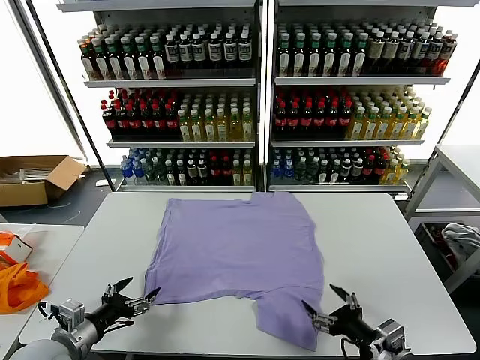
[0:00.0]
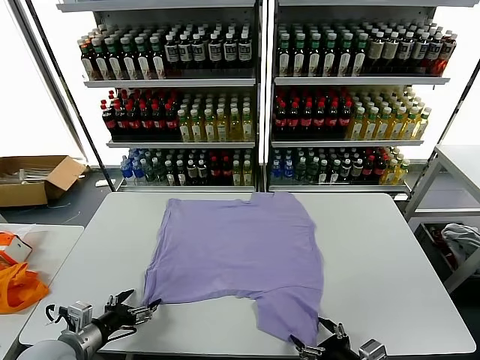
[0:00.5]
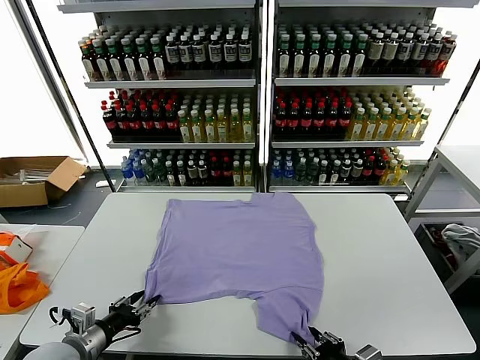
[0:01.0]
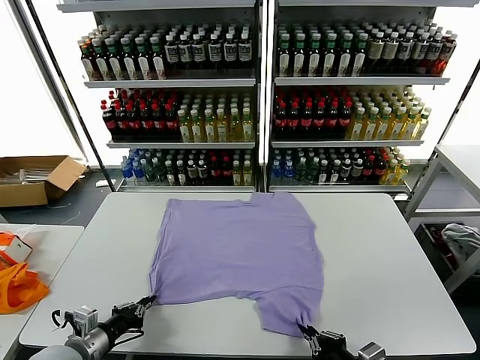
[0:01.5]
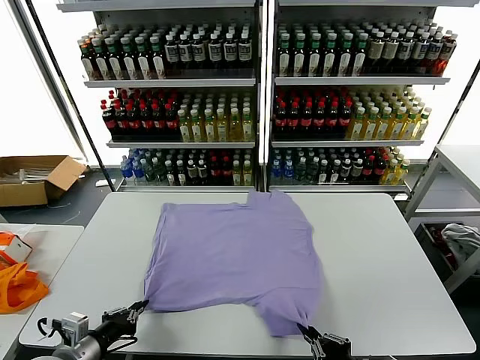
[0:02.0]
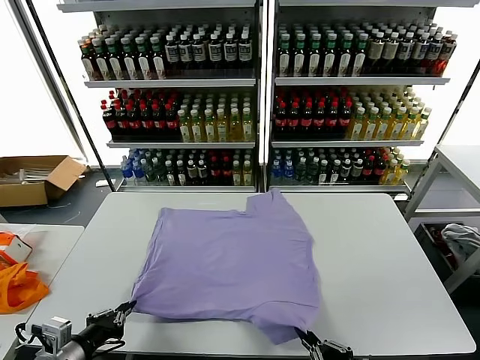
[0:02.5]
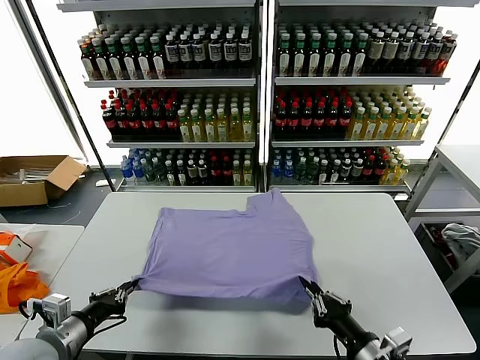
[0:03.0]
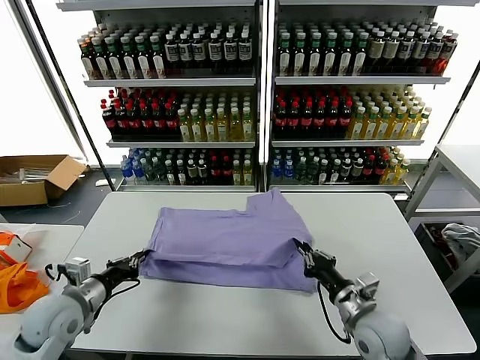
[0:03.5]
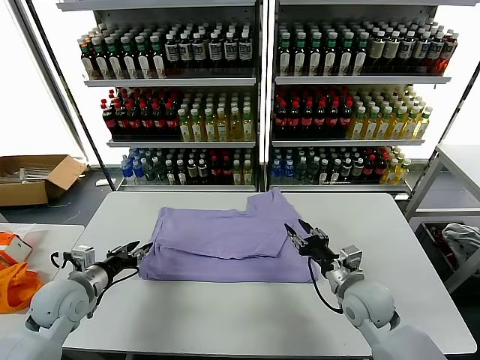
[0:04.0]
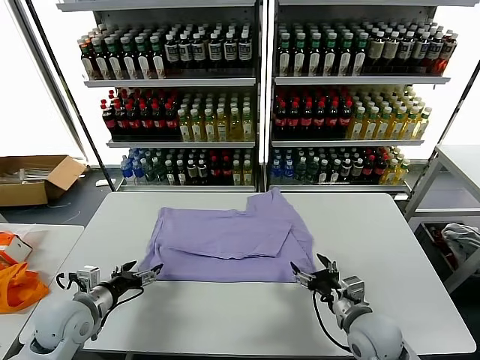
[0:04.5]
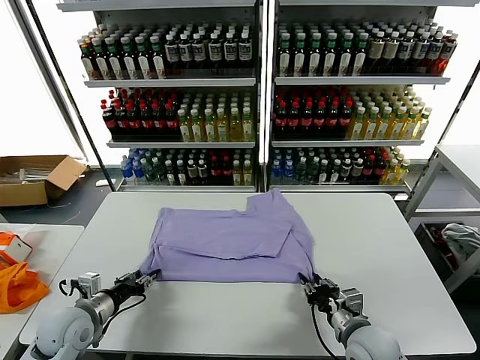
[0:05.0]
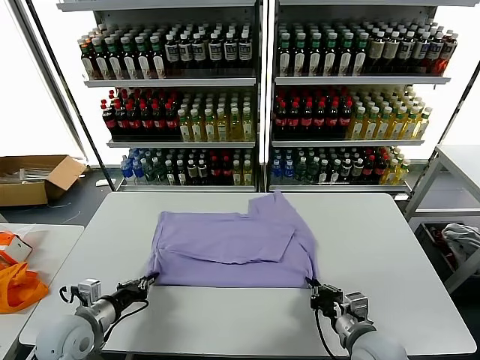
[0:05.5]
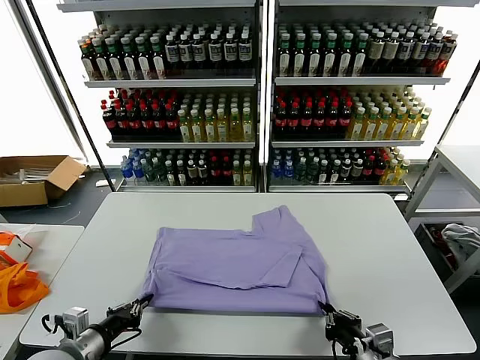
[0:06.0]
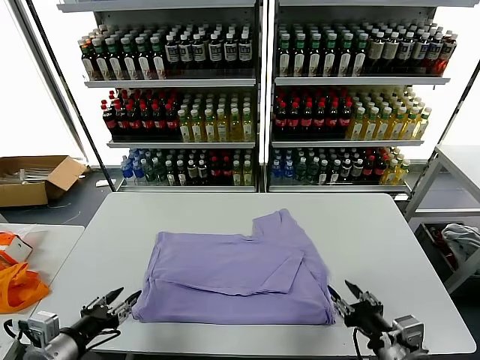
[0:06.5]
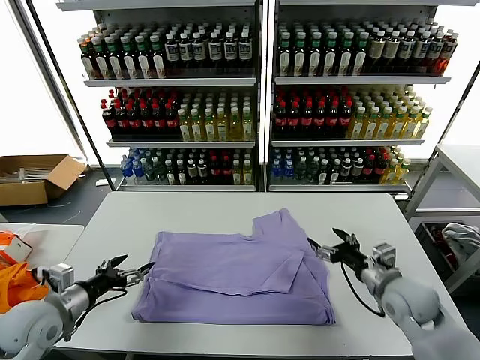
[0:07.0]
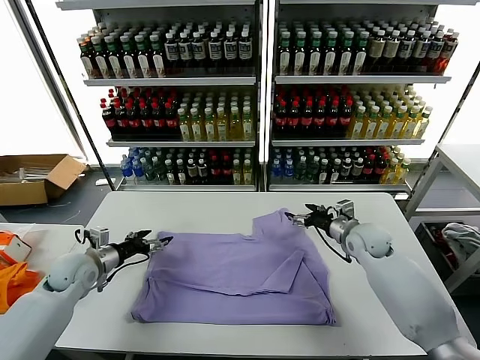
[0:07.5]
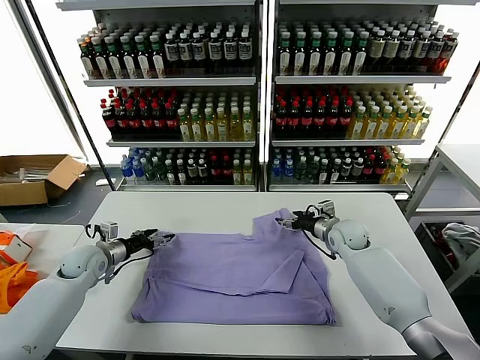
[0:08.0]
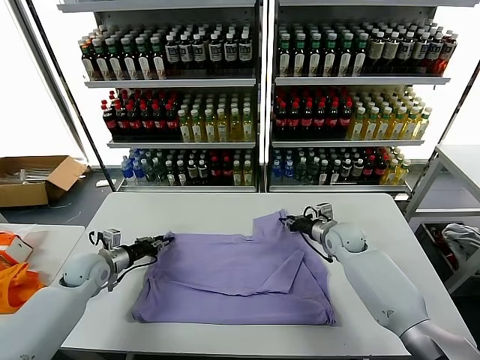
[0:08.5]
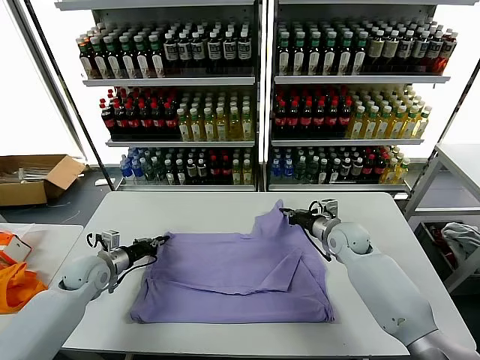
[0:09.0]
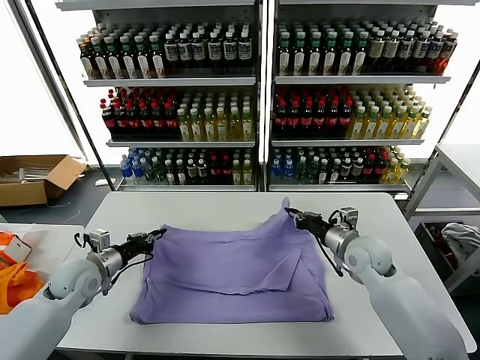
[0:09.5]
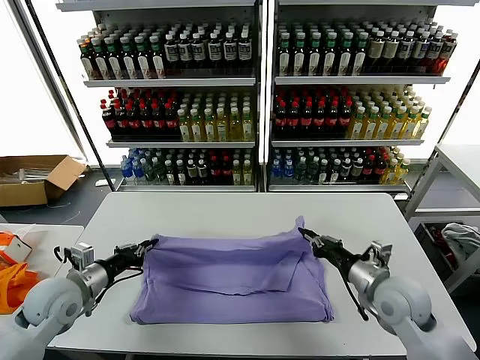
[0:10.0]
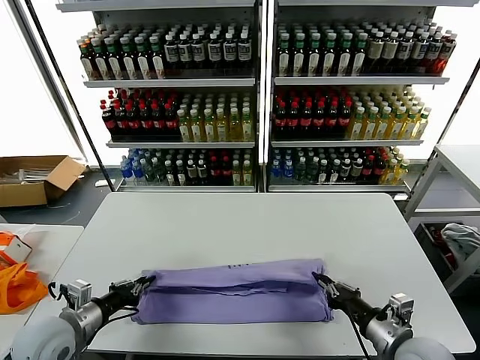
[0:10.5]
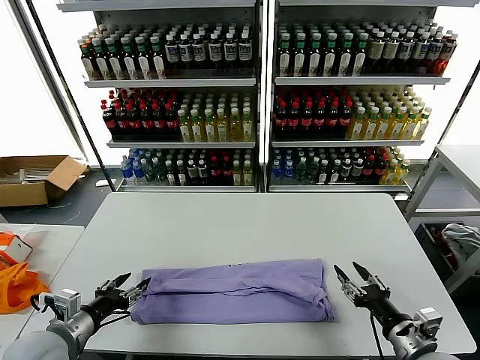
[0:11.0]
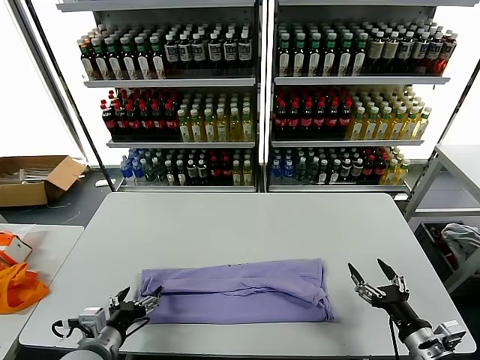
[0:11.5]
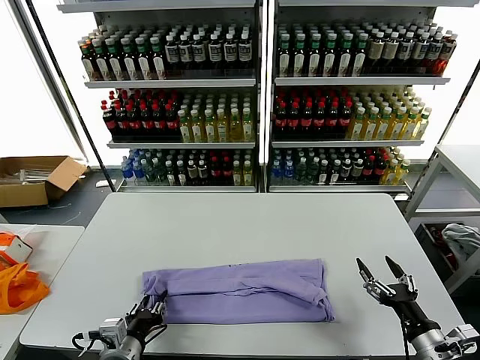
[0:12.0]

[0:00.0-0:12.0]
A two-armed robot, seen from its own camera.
Task of the whole recording: fold and organize the clothes.
Step, 0:00.0 to 0:01.0: use both grippers simultaneously to clamp the lower edge of the clothing fabric.
Step, 0:01.5 to 0:03.5: use both grippers to drag the lower edge of the fabric forward and fold it over the upper edge.
Step, 0:04.0 to 0:06.0: Drag the clothes downward with both gripper.
Step, 0:06.5 to 0:08.5: use both grippers simultaneously to clamp the upper edge of the clothing fabric.
Step, 0:09.0 to 0:10.5: use both grippers to drag the upper edge of the fabric backward and fold it over the lower edge.
0:02.0 to 0:04.0: The right gripper is displaced forward by some 20 cm, and opens its fingers. Meanwhile the left gripper heads forward, covering approximately 15 cm, and opens its fingers.
0:04.0 to 0:06.0: Both grippers travel together backward, some 15 cm. The right gripper closes its fingers, while the left gripper closes up.
0:06.0 to 0:08.0: Both grippers move forward, about 30 cm. The right gripper opens up. The left gripper opens.
0:08.0 to 0:10.0: The right gripper shifts some 25 cm backward, and closes up; the left gripper moves backward and upward, roughly 15 cm, and closes.
0:10.0 to 0:12.0: Both grippers travel together backward, to the right and downward, roughly 15 cm. The left gripper opens; the right gripper opens.

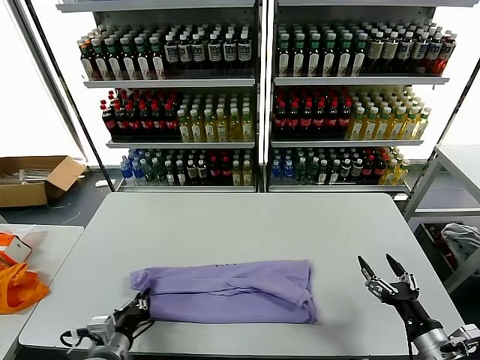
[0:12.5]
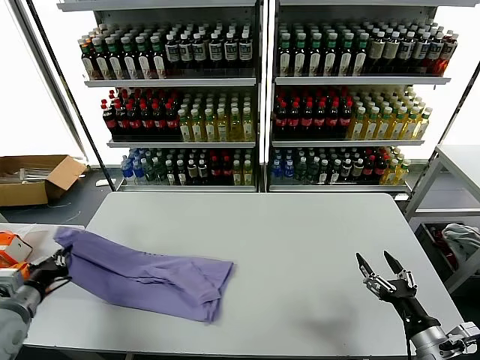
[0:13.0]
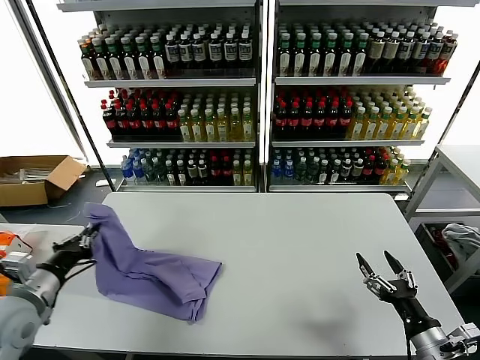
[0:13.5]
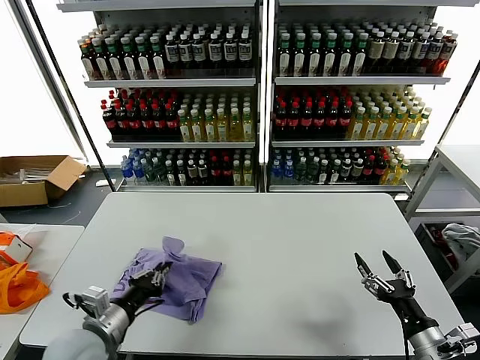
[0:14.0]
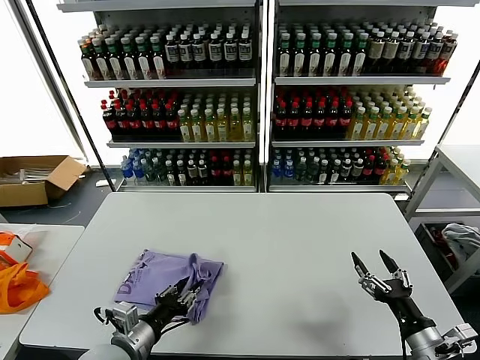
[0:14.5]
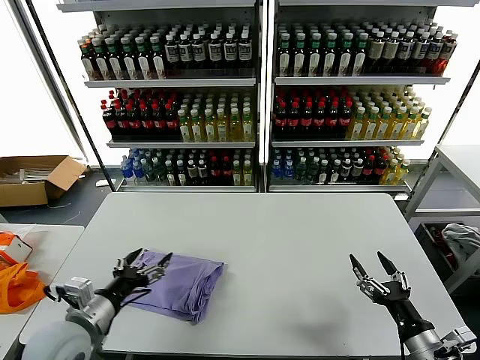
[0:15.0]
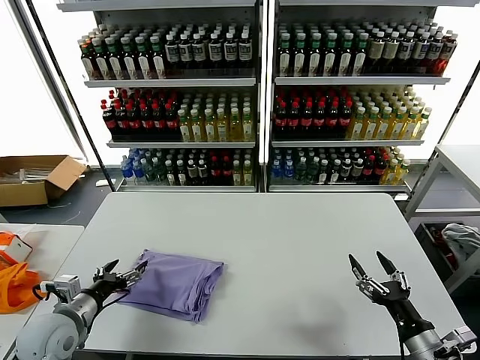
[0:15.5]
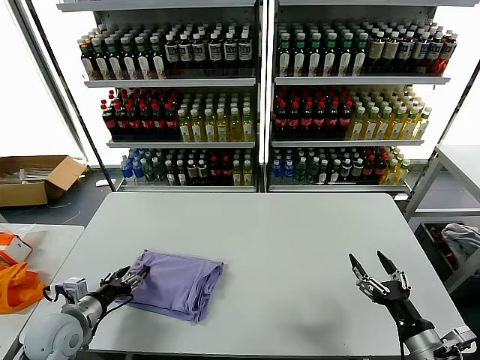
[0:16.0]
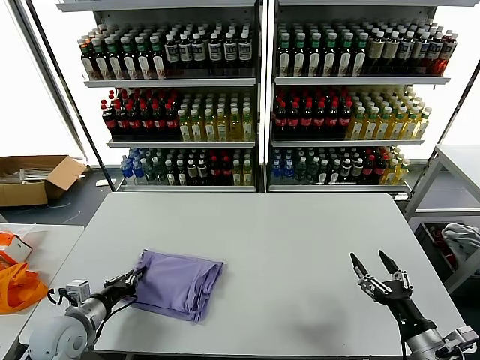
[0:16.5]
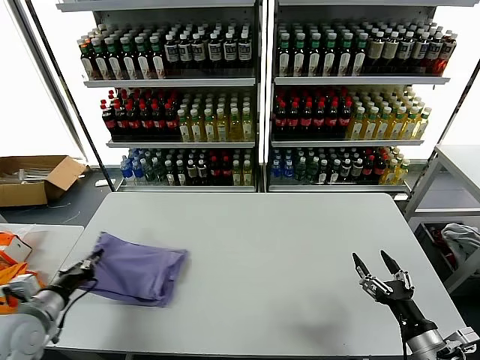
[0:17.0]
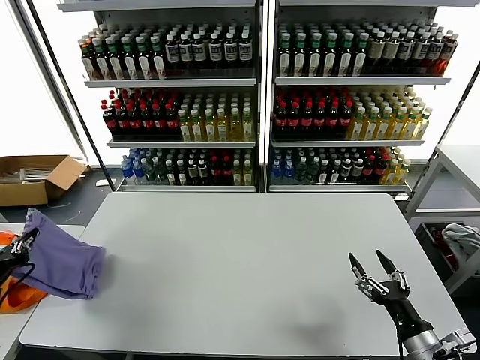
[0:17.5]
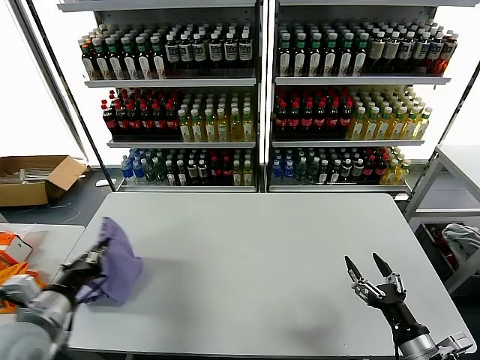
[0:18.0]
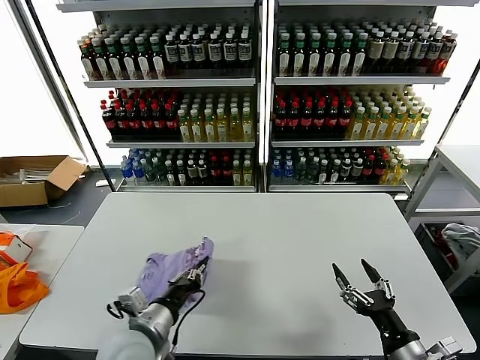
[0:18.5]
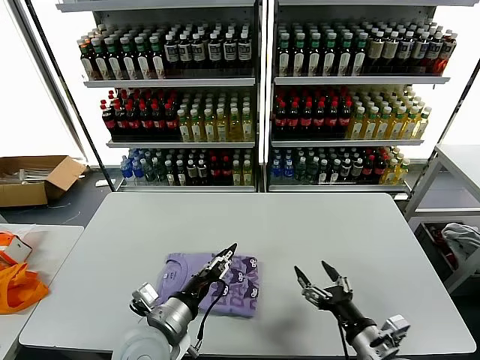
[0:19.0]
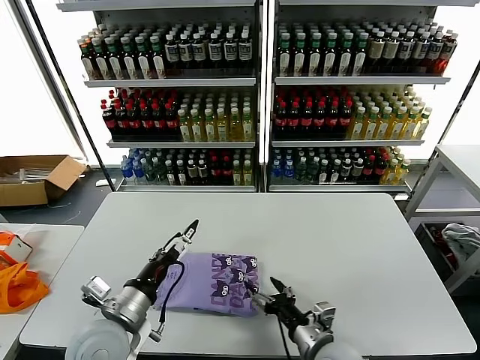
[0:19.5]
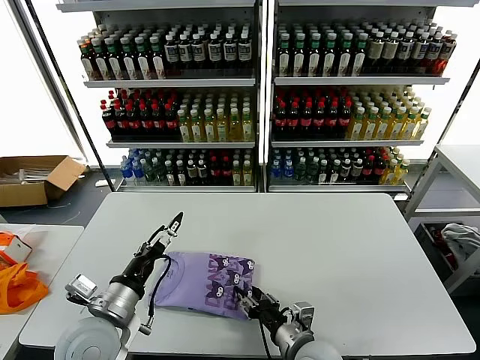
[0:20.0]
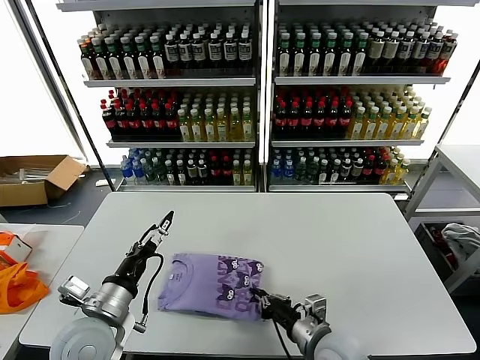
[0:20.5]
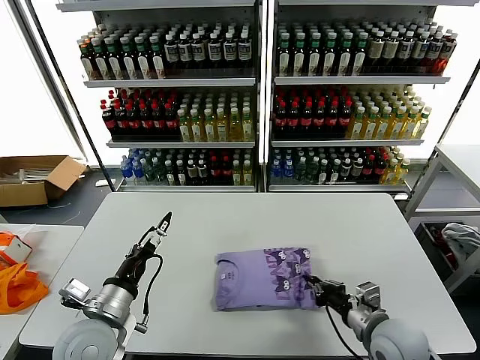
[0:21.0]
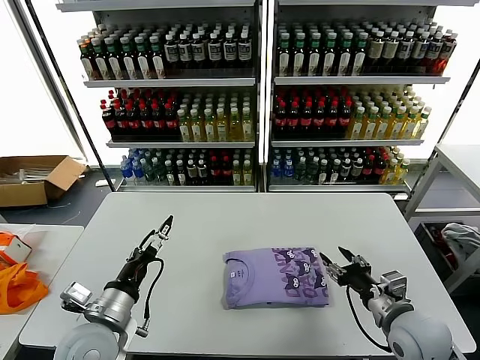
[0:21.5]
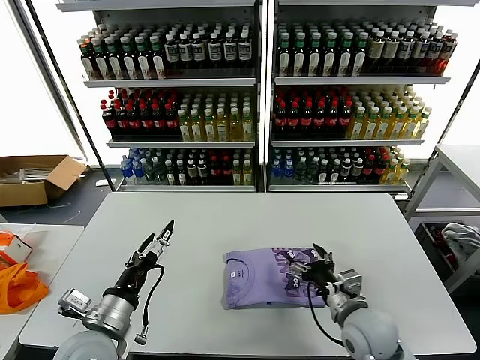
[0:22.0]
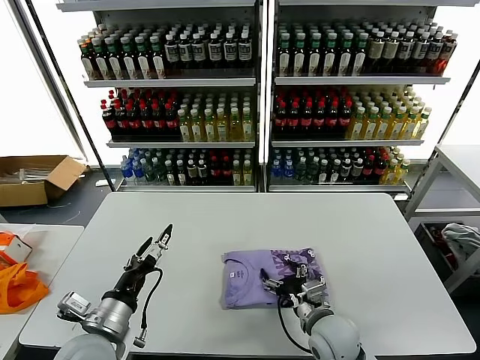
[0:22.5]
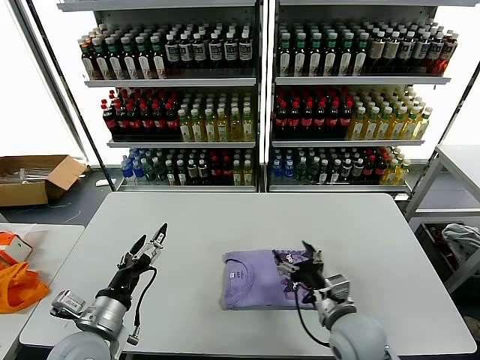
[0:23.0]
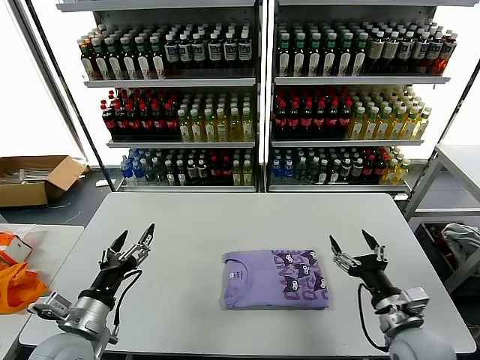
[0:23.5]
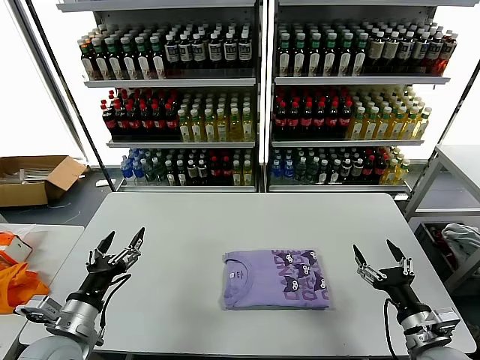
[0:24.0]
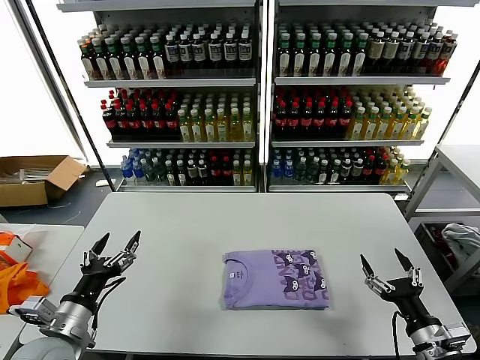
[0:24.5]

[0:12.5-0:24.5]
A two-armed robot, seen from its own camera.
Task of the whole recording: fold and organize the clothes.
Step, 0:12.5 to 0:14.5: use the left gripper to drag the left edge of the fabric to the left and folds it over the right edge.
Step, 0:15.0 to 0:19.0: Flip the folded clothes over with left gripper.
Step, 0:19.5 to 0:22.5: Drag the clothes to the center of the table.
0:12.5 to 0:14.5: The left gripper reaches some 20 cm to the left, then returns, and opens.
0:14.5 to 0:16.5: The left gripper heads to the left and forward, covering roughly 15 cm, and opens, then closes once more.
0:16.5 to 0:18.5: The left gripper is displaced to the right by about 15 cm.
0:18.5 to 0:20.5: The left gripper goes about 5 cm to the left, and opens up. Meanwhile the right gripper heads to the left and forward, covering some 15 cm, and closes up.
0:20.5 to 0:22.5: The right gripper moves some 15 cm to the right and comes back, and opens its fingers.
0:22.5 to 0:24.5: The right gripper moves to the right and backward, approximately 20 cm. Meanwhile the left gripper moves to the left, some 10 cm.
